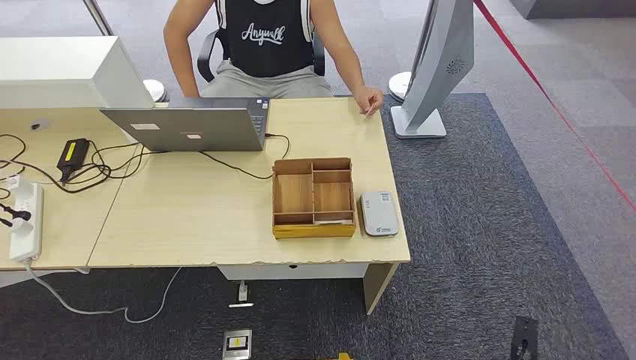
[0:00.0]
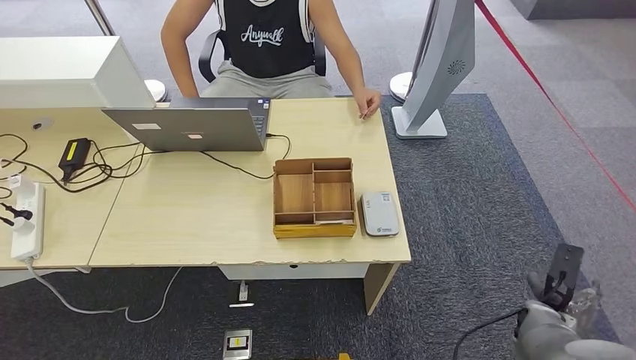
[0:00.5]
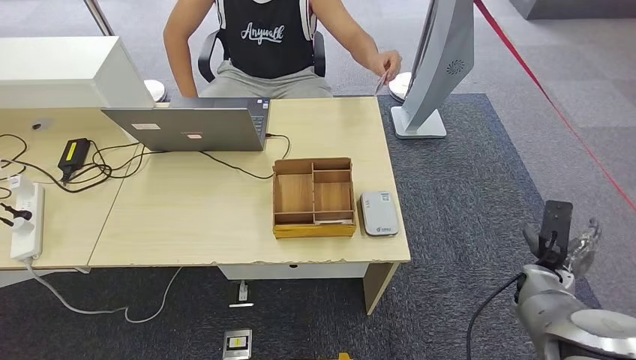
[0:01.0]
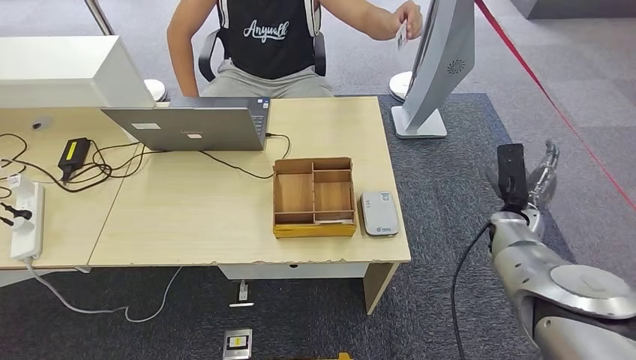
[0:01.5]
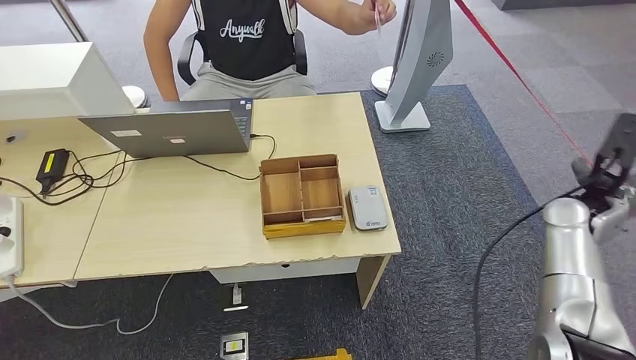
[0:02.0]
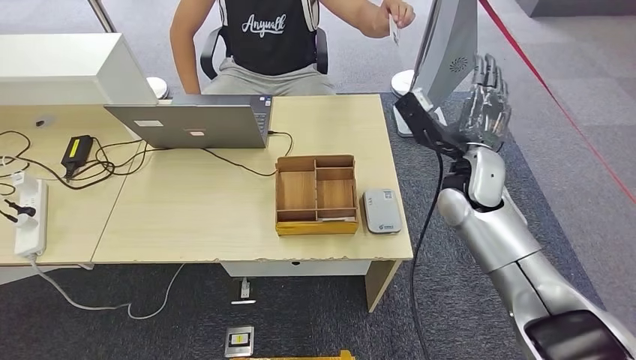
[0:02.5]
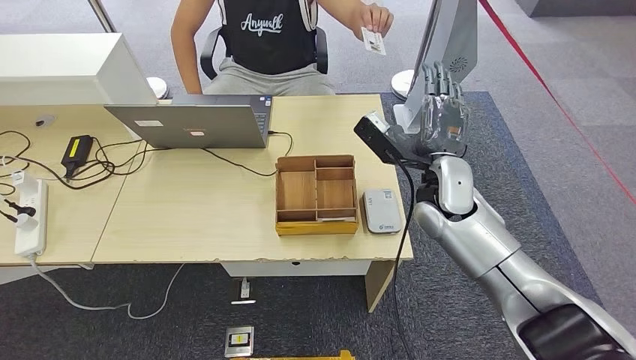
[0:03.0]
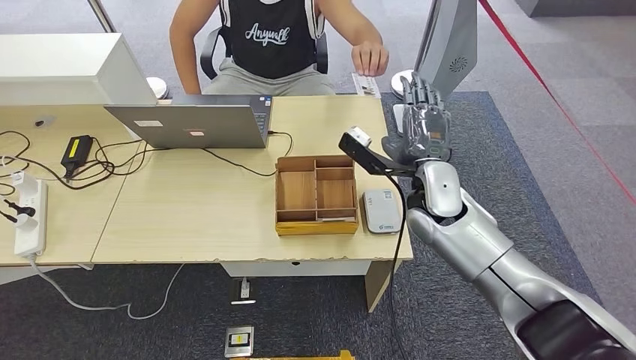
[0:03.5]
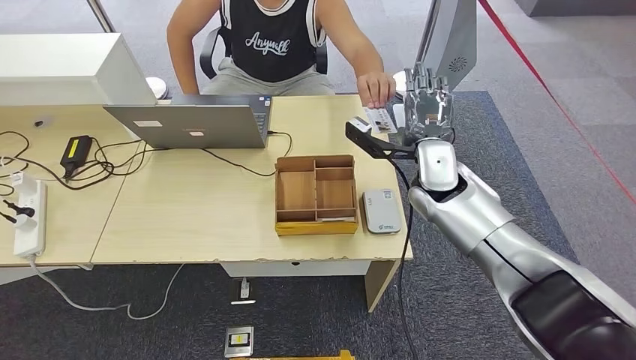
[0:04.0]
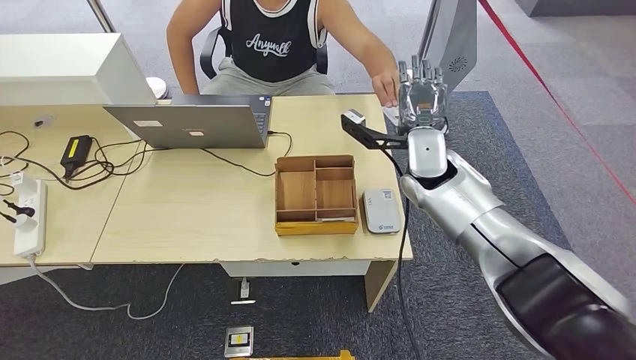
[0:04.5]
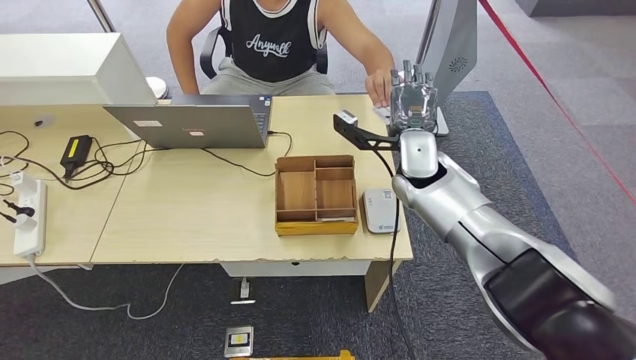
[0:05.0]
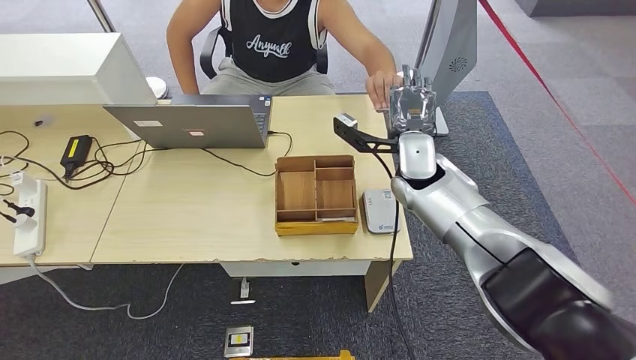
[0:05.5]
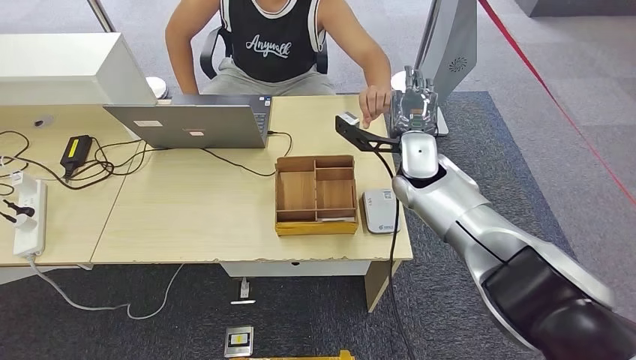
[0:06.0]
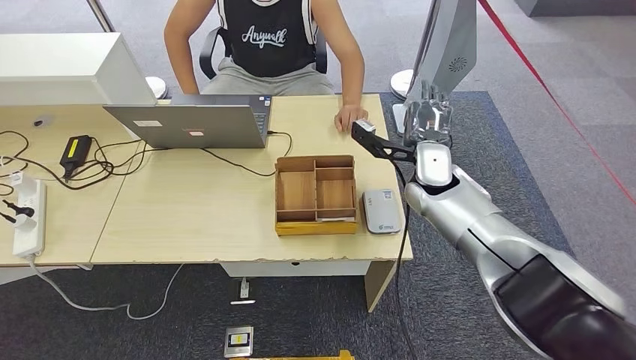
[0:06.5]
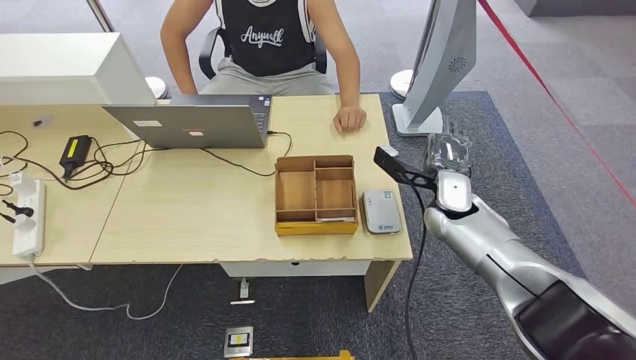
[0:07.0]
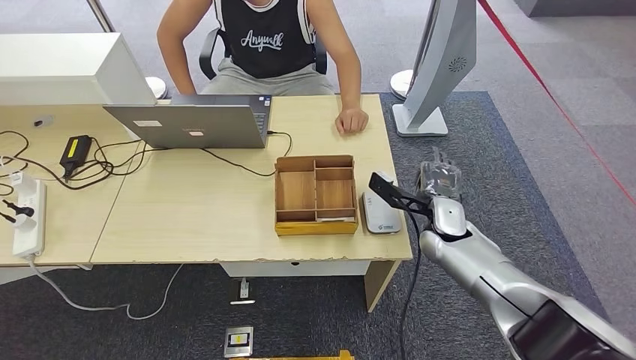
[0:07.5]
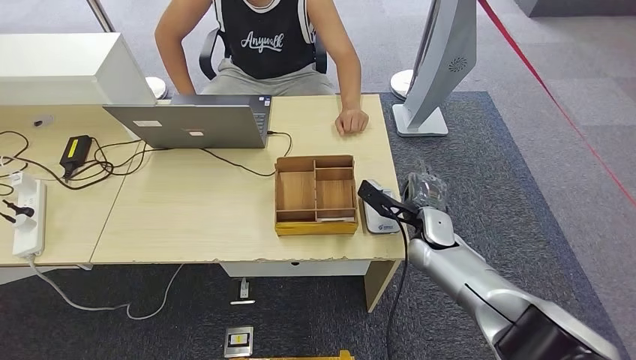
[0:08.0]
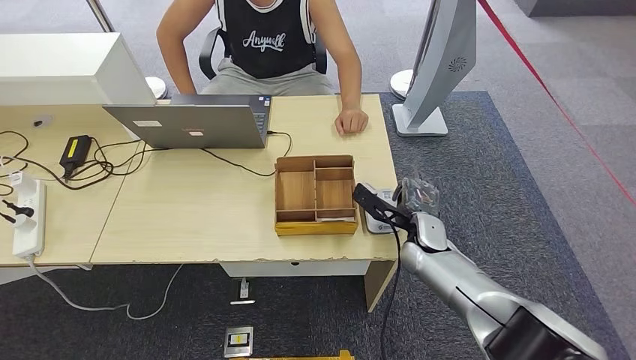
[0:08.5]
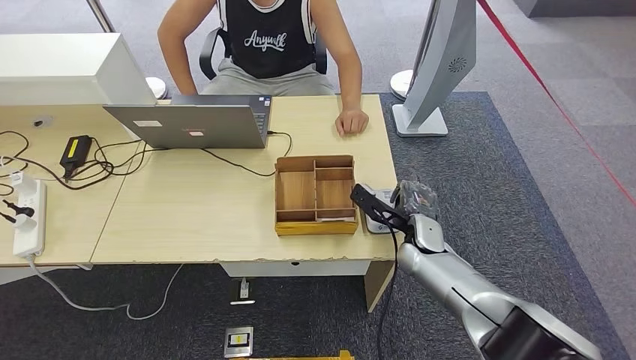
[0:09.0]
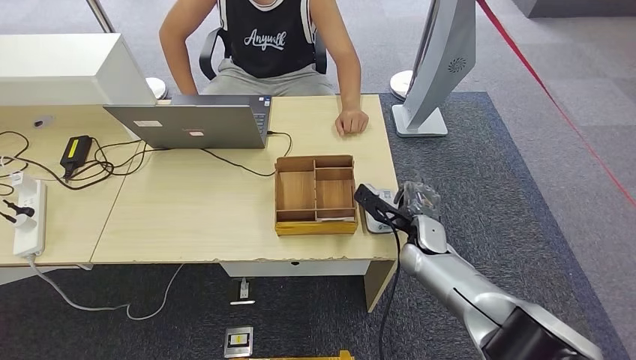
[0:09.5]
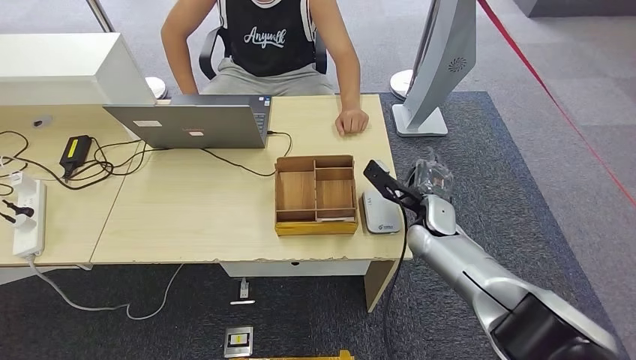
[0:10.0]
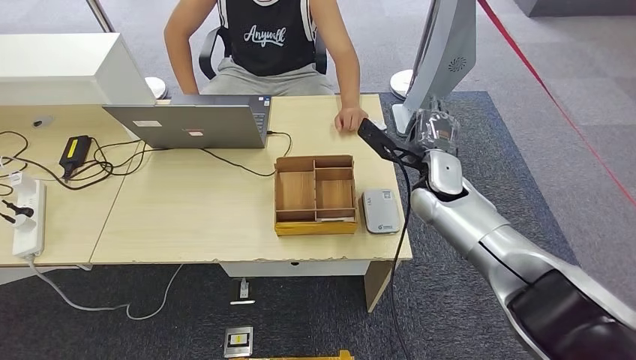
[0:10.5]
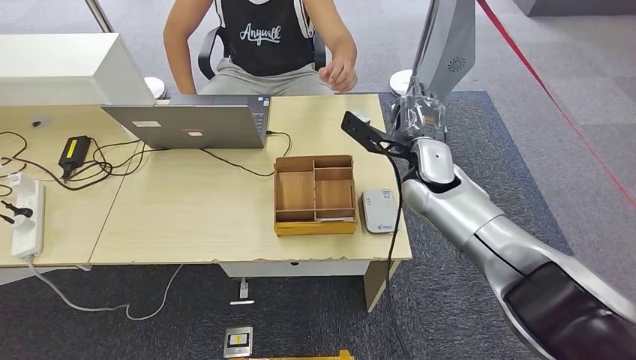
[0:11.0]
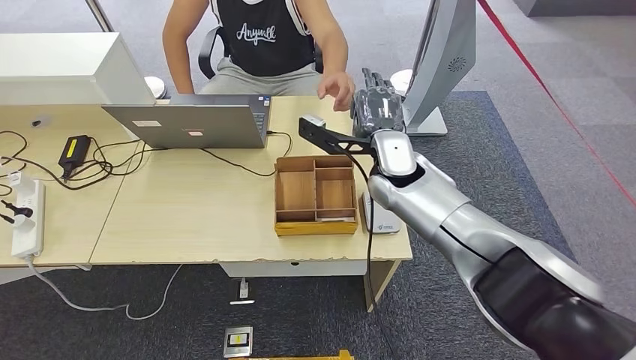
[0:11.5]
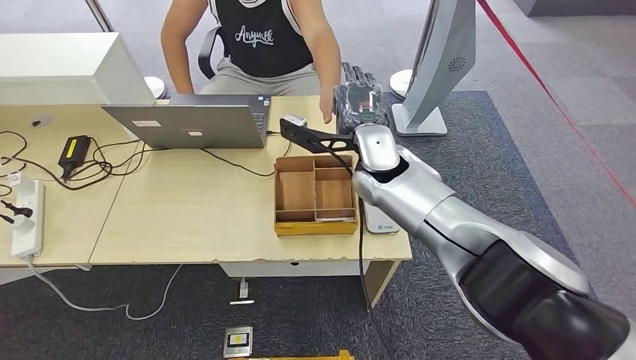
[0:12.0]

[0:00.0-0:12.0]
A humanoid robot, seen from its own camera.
Step, 0:00.0 to 0:05.5: Take the ID card from the person's hand.
Step, 0:06.0 to 0:09.5: Place the ID card on the card reader.
0:04.0 to 0:06.0: The hands make only small movements.
0:06.0 to 0:08.0: The right hand moves downward and backward, roughly 15 cm.
0:08.0 to 0:10.0: The hands stay close to where they were, moving slightly.
0:10.0 to 0:12.0: The right hand moves upward and to the left, roughly 20 cm.

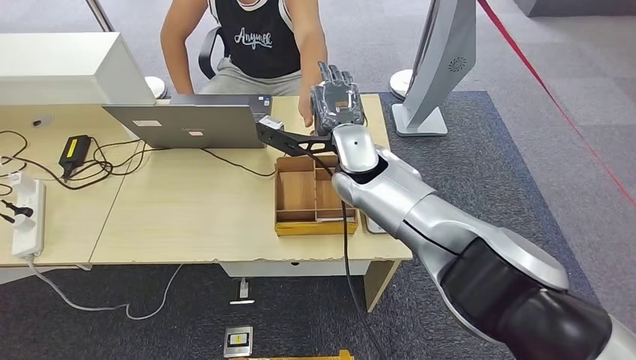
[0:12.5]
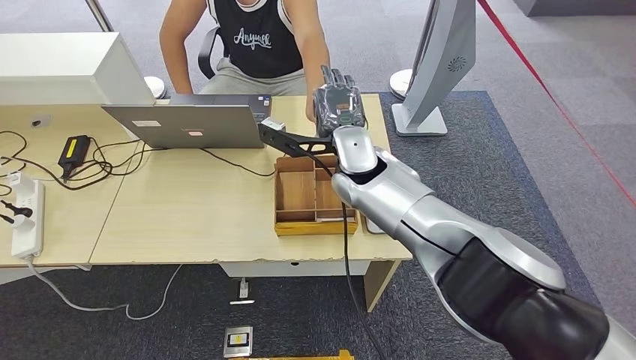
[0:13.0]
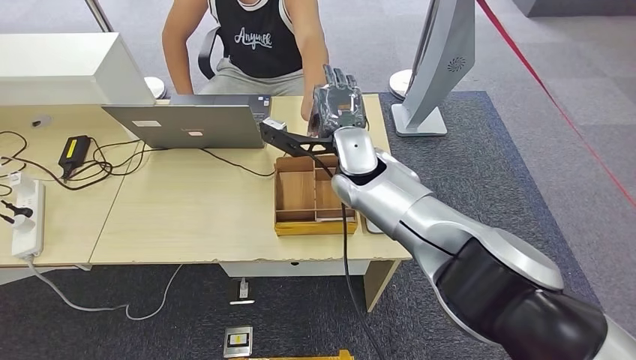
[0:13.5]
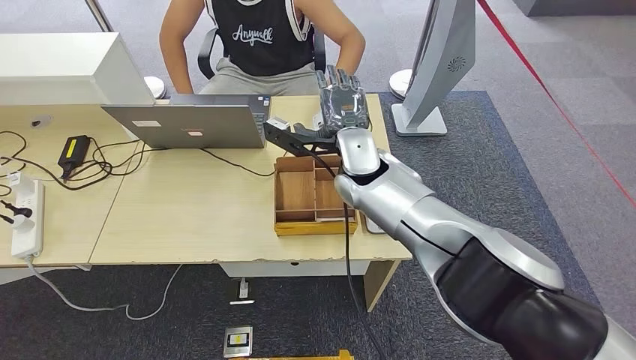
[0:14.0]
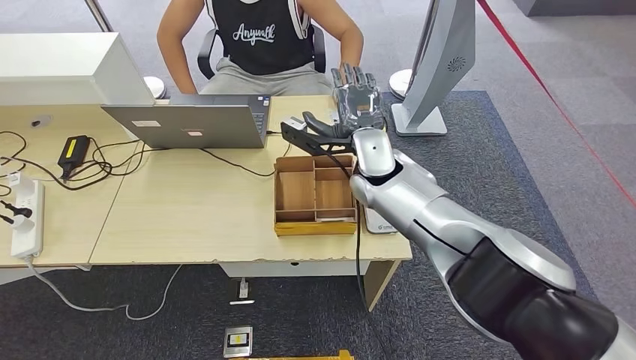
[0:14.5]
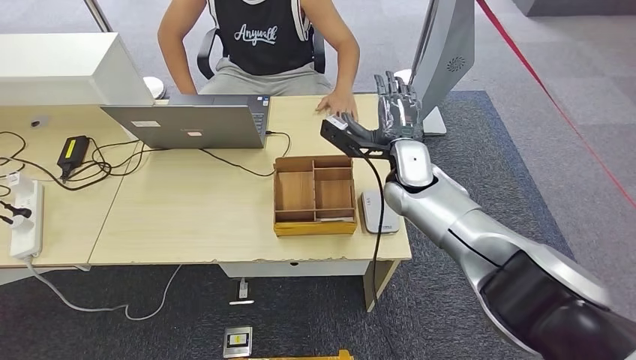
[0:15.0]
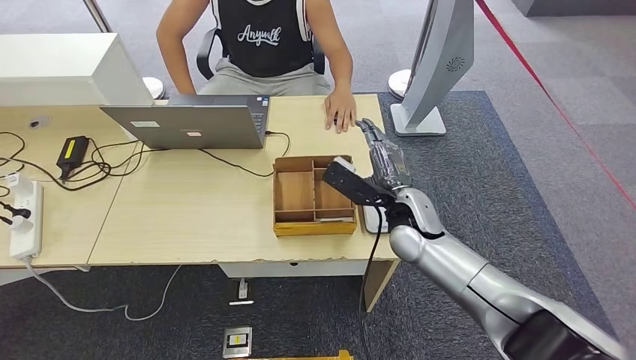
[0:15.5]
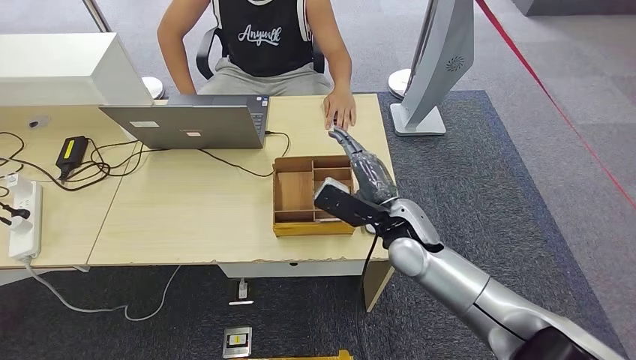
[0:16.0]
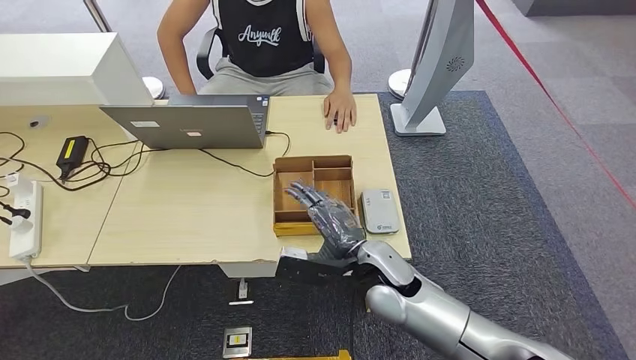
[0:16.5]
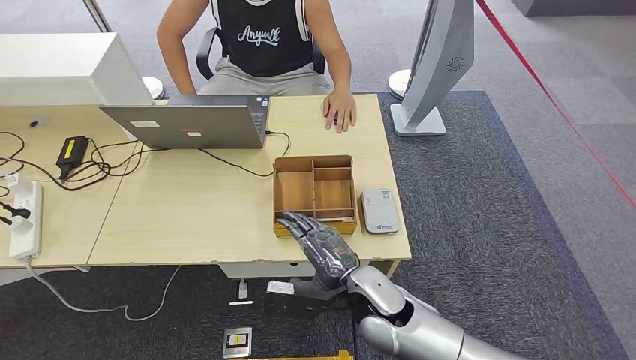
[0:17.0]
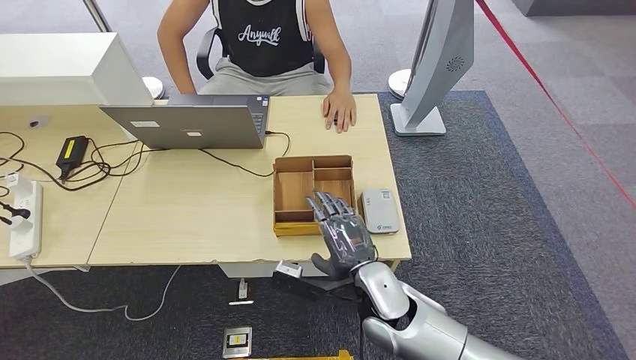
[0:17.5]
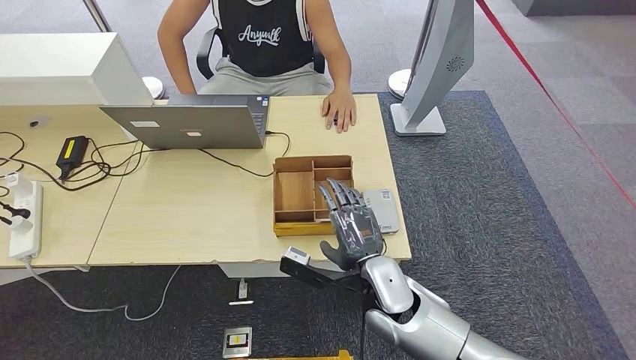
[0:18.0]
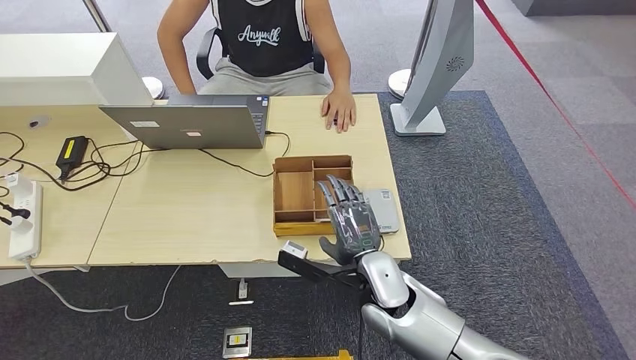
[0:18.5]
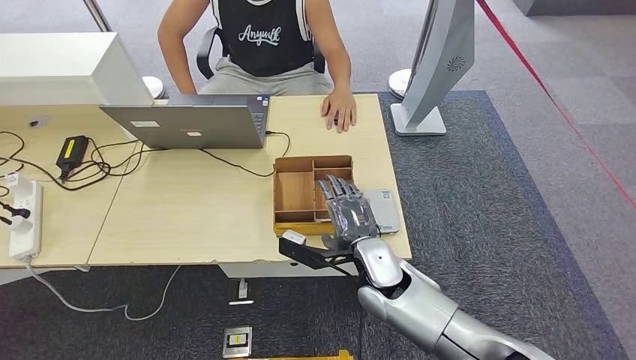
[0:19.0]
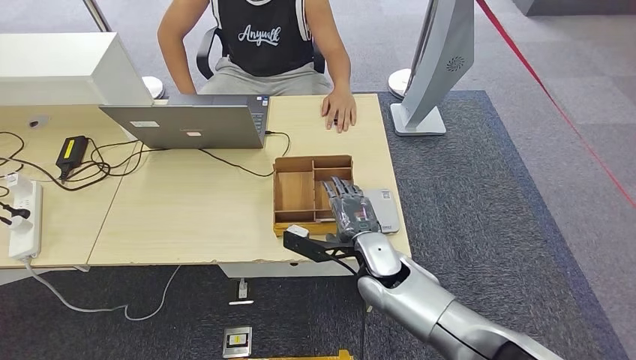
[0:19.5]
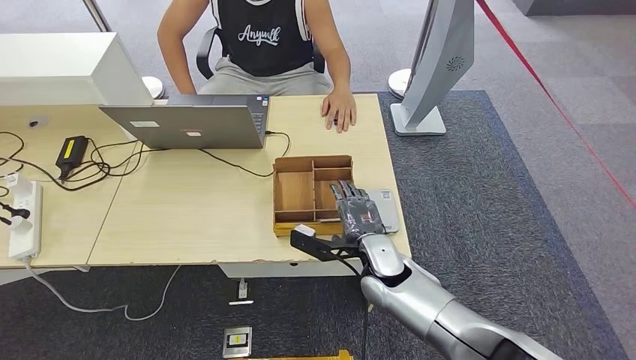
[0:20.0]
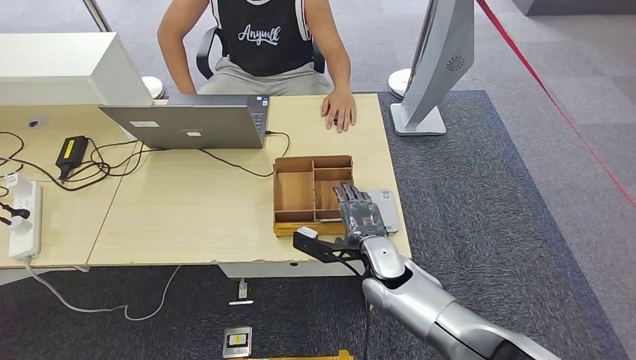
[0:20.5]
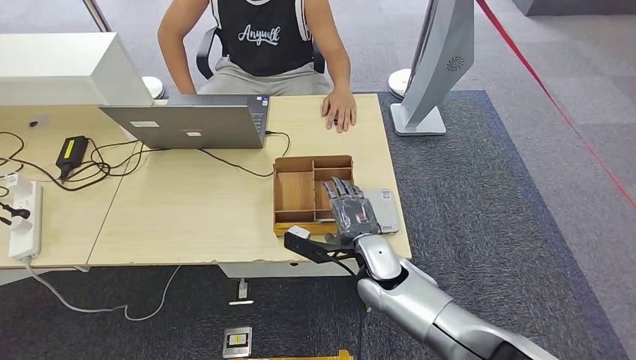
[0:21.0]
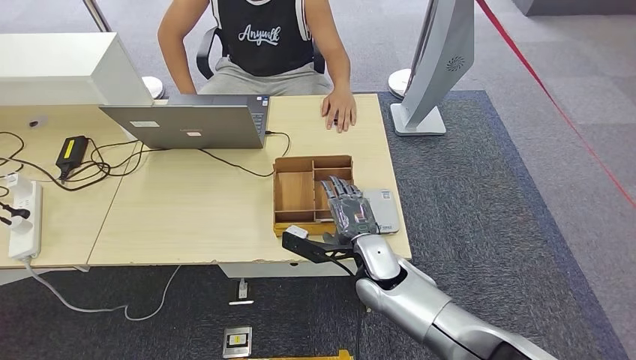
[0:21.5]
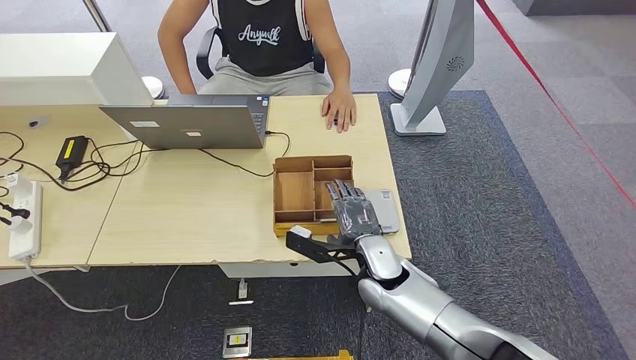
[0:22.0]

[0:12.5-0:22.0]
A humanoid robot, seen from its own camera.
0:12.5 to 0:14.5: The hands make only small movements.
0:18.0 to 0:20.0: The right hand goes roughly 5 cm forward.
0:20.0 to 0:22.0: The hands stay close to where they were, moving slightly.
